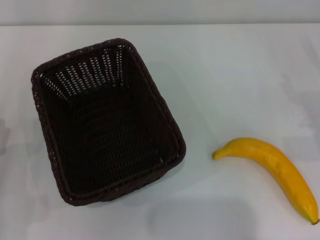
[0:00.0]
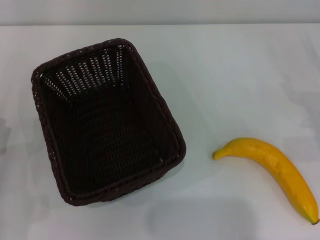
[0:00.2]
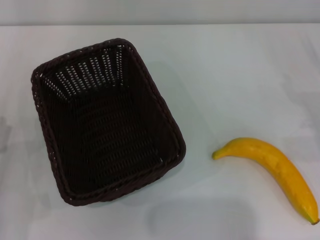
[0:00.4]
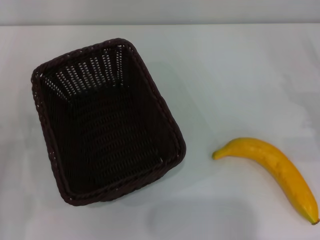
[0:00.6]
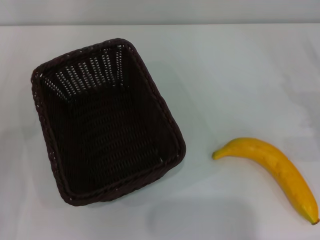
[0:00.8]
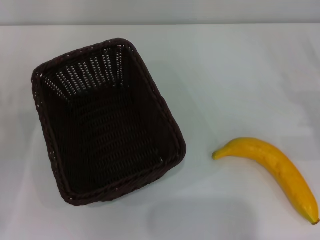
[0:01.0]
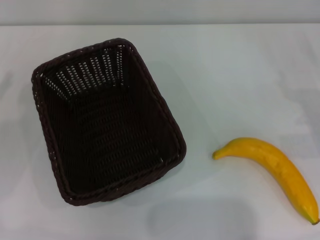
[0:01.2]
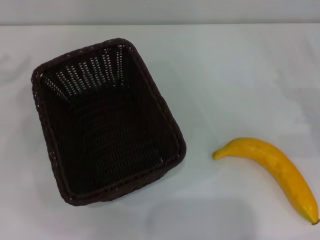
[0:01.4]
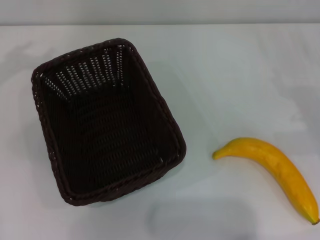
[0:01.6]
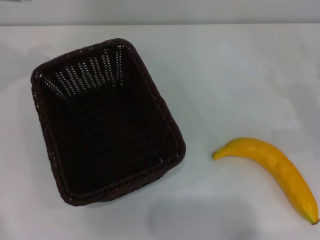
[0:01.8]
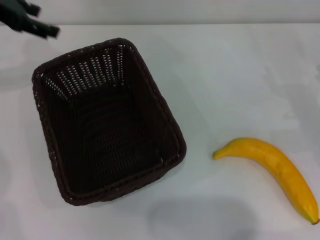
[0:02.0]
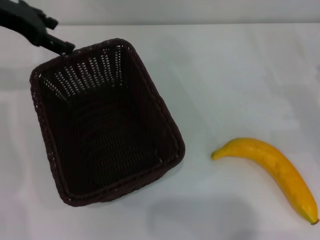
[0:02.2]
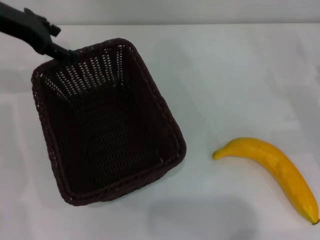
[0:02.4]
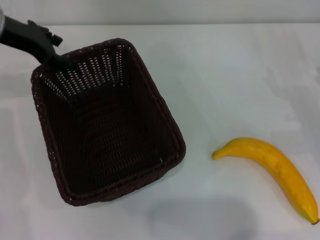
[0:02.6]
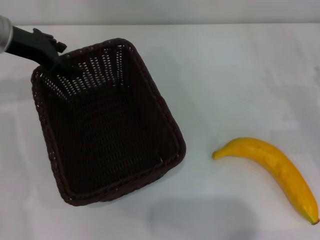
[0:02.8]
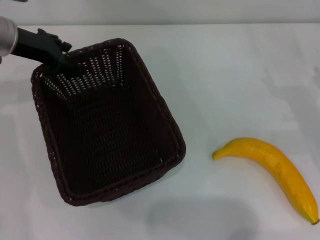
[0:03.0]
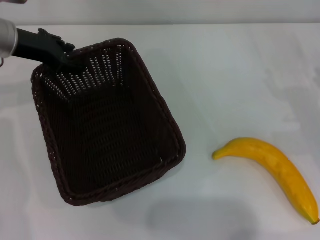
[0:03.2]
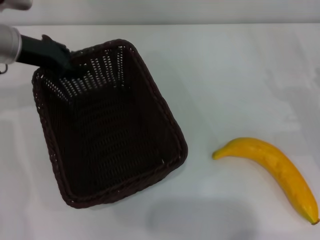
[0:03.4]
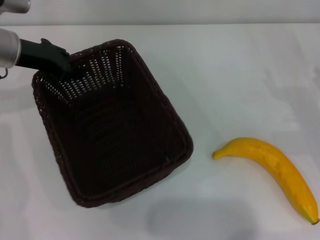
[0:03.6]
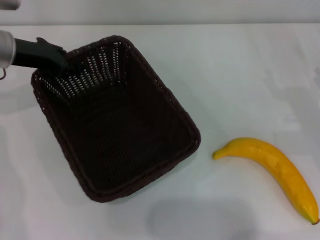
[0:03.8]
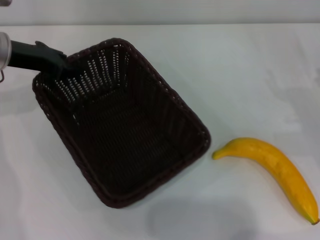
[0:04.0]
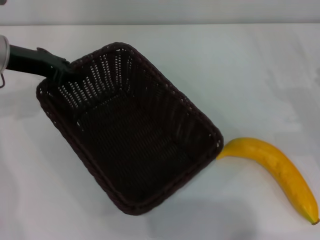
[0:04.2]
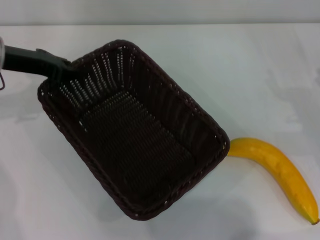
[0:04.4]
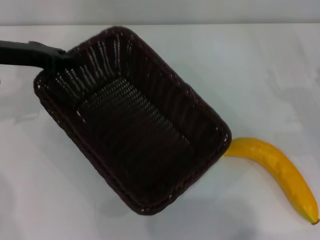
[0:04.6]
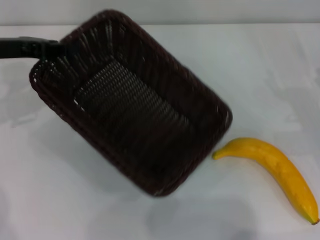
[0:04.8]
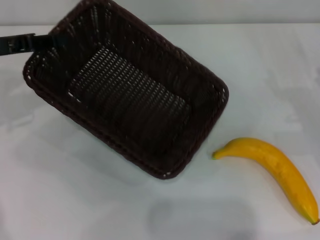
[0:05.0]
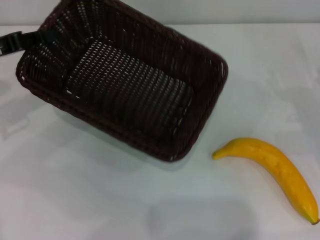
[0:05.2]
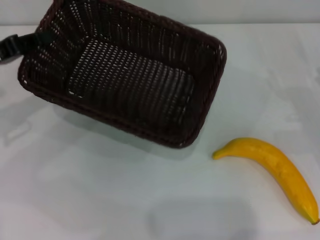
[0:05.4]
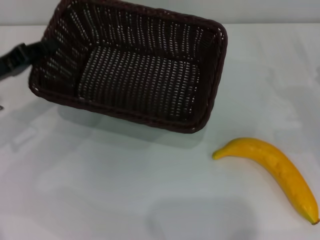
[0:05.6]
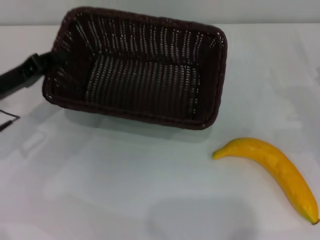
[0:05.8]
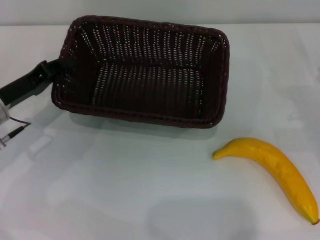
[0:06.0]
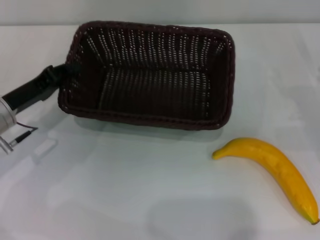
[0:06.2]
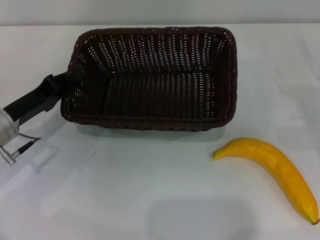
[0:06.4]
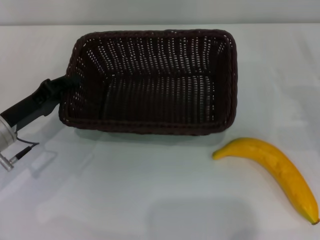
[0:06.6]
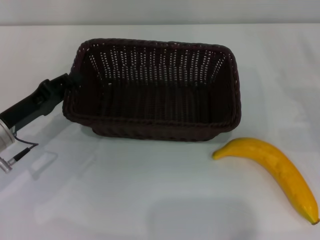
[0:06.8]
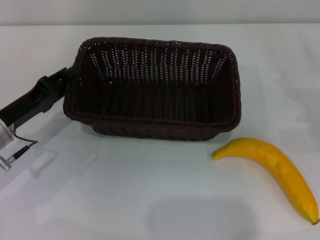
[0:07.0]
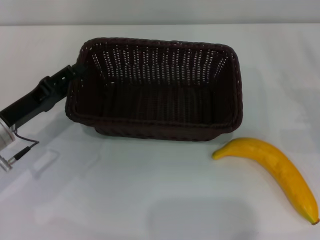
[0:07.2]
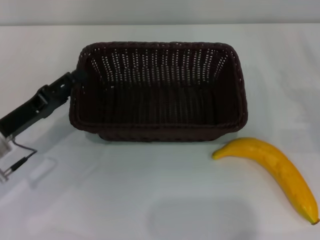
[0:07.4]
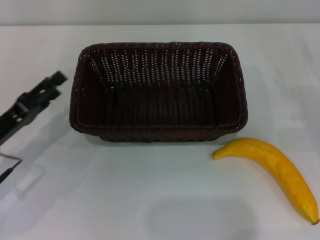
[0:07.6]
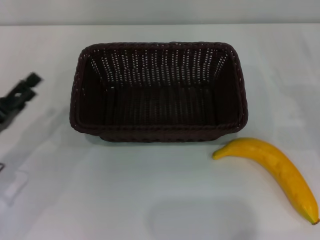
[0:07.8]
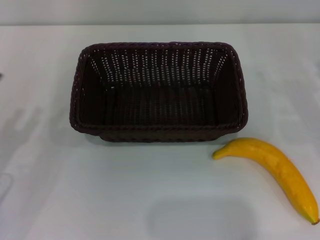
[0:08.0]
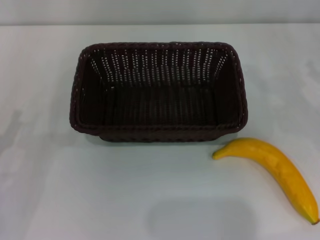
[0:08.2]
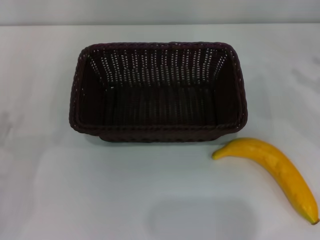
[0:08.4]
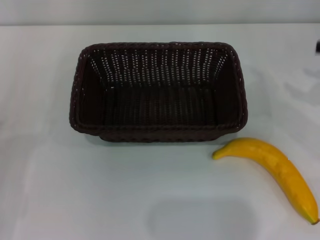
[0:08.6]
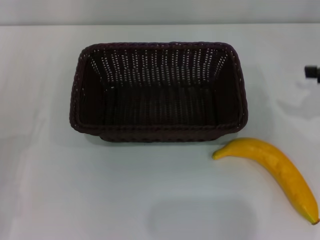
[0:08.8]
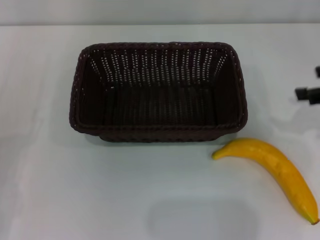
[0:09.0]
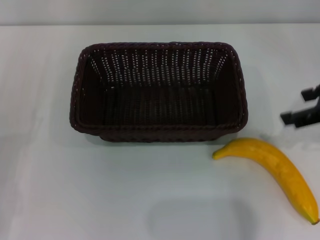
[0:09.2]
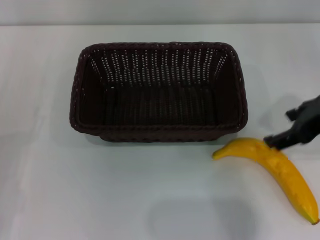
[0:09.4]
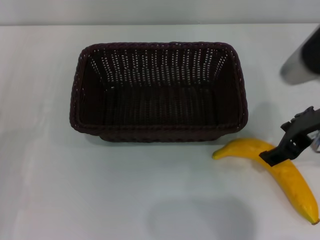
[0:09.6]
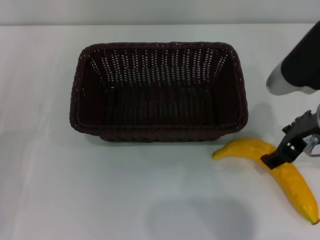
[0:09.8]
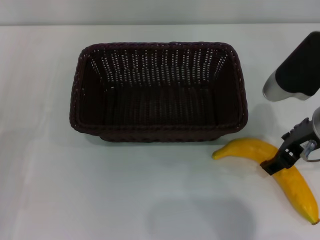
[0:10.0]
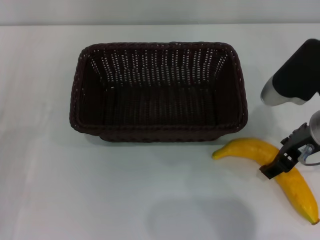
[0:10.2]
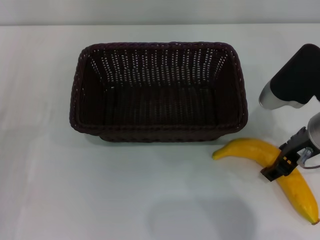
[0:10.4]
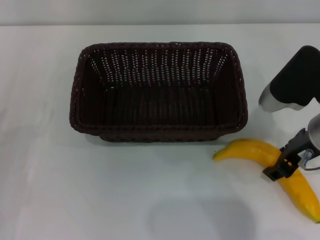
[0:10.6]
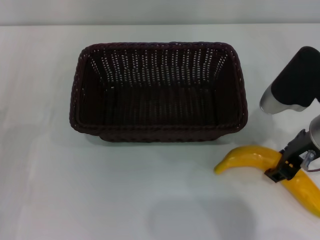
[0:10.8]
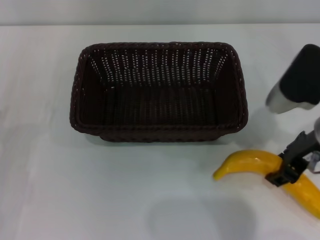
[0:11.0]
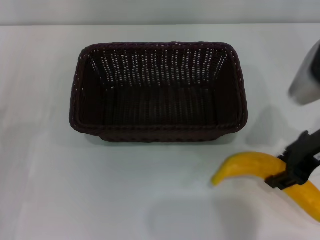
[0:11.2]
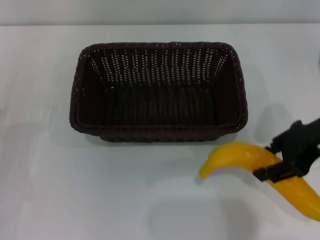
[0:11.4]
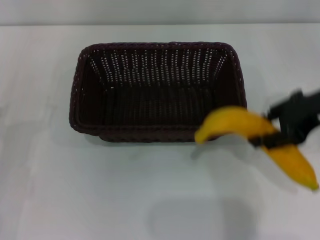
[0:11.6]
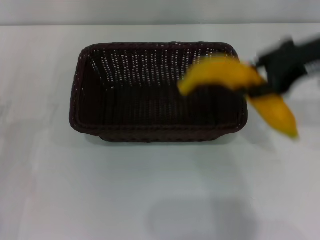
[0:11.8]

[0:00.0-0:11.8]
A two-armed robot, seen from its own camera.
Step, 0:00.0 to 0:04.4: Pick up the dark basket with the left gripper.
Step, 0:04.8 to 0:07.6: Place the dark basket in the center of view with the left gripper.
Step, 0:07.8 to 0:11.4: Pick up the banana with the right gripper.
0:00.0 to 0:01.4: The left gripper moves upward, forward and to the left, approximately 25 cm.
0:01.4 to 0:03.0: The left gripper is displaced to the right and forward by about 15 cm.
0:03.0 to 0:04.4: The left gripper closes its fingers.
0:04.4 to 0:06.0: The left gripper shifts roughly 10 cm downward and backward.
0:06.0 to 0:07.4: The left gripper moves roughly 5 cm, and opens up.
0:07.4 to 0:08.8: The left gripper heads backward and to the left, covering some 10 cm, while the right gripper heads upward, covering approximately 15 cm.
0:08.8 to 0:10.4: The right gripper goes roughly 15 cm to the left.
0:10.4 to 0:11.8: The right gripper heads upward, covering about 10 cm, and closes its fingers.

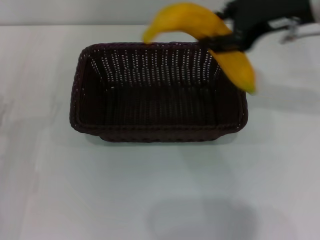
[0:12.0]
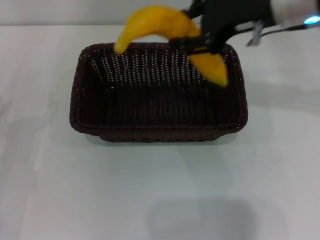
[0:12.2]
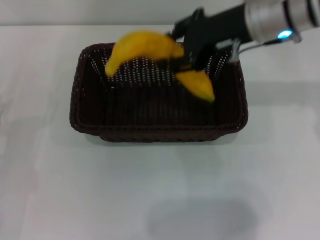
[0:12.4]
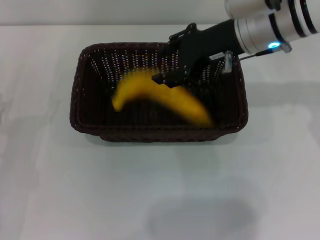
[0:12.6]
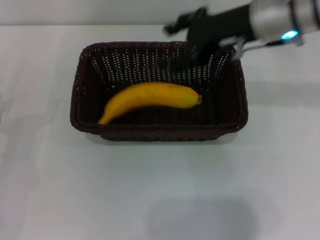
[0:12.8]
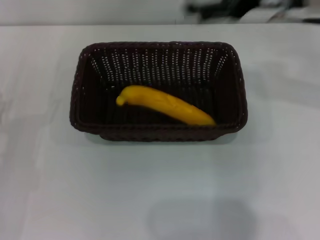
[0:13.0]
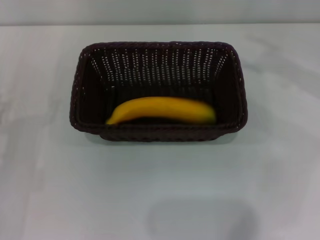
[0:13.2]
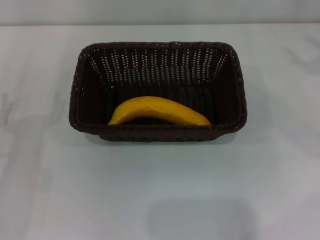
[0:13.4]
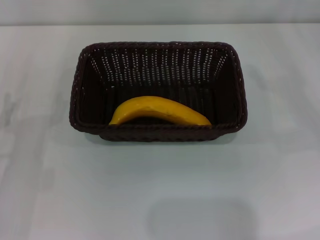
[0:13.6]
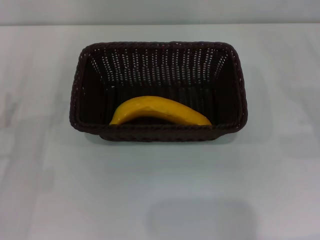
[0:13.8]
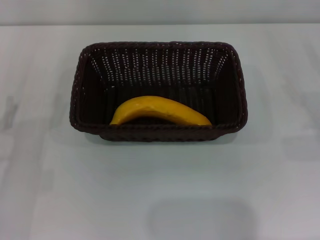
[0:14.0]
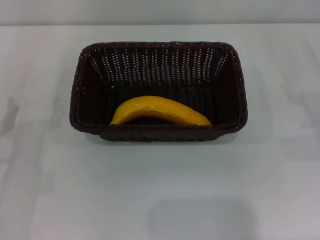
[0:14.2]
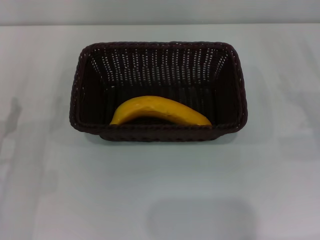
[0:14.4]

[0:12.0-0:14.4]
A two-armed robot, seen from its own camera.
Step, 0:12.0 to 0:12.8: Place the banana into the dark basket with the right gripper.
0:12.0 to 0:13.2: The right gripper goes some 10 cm to the right, and opens up.
0:13.2 to 0:14.4: The right gripper travels downward and backward by about 20 cm.
